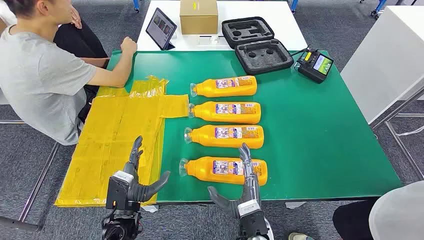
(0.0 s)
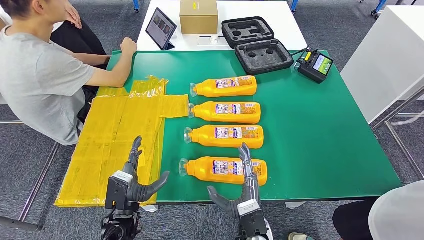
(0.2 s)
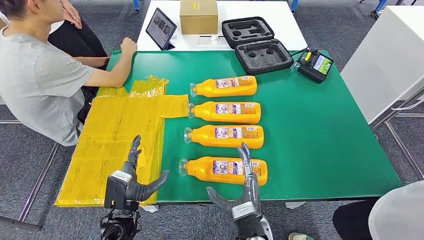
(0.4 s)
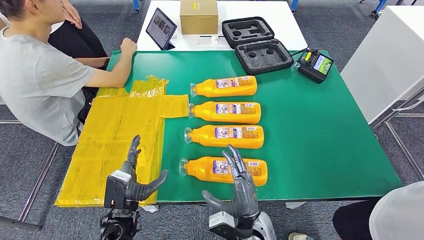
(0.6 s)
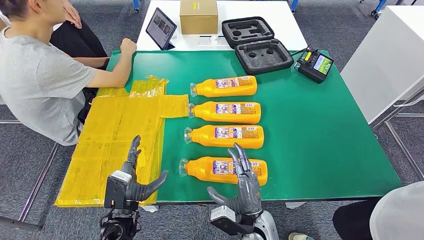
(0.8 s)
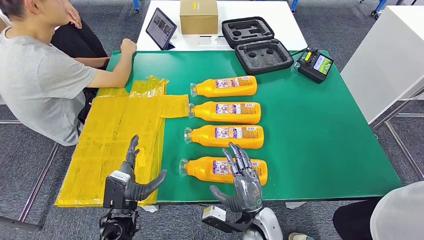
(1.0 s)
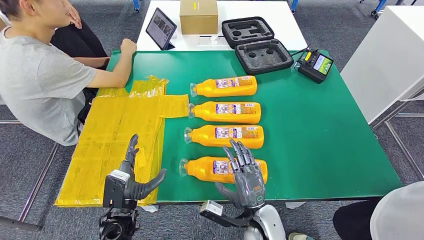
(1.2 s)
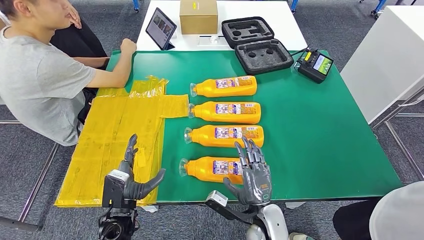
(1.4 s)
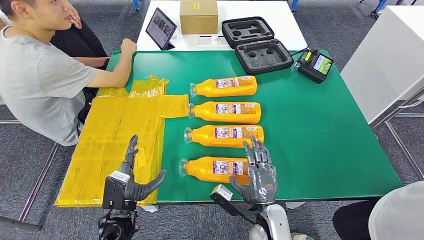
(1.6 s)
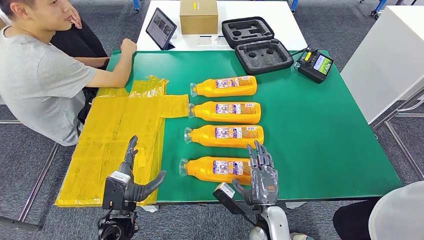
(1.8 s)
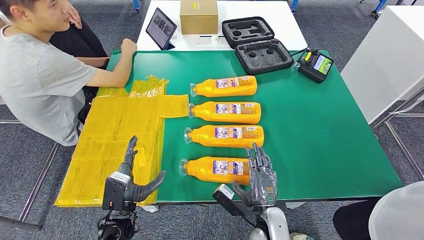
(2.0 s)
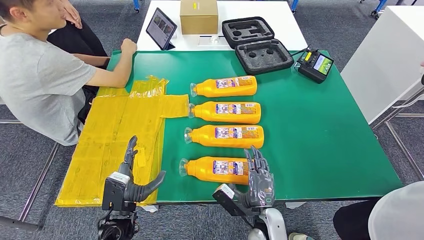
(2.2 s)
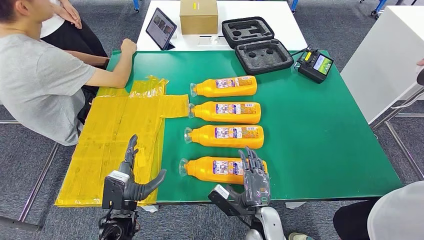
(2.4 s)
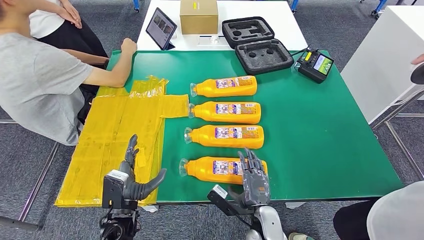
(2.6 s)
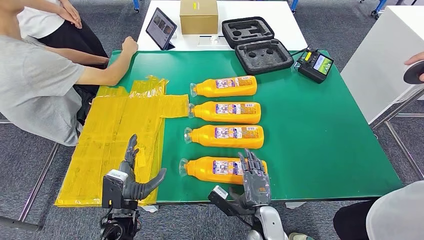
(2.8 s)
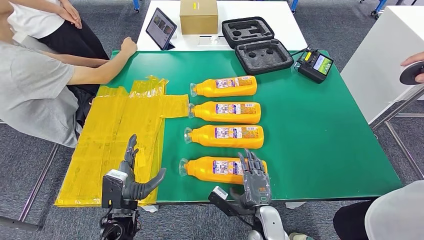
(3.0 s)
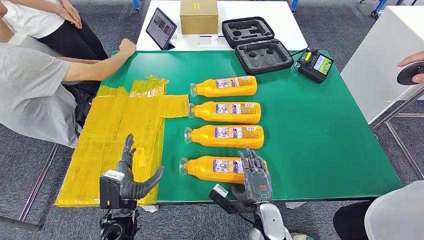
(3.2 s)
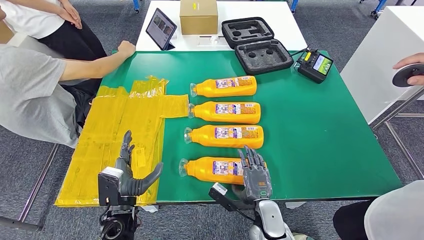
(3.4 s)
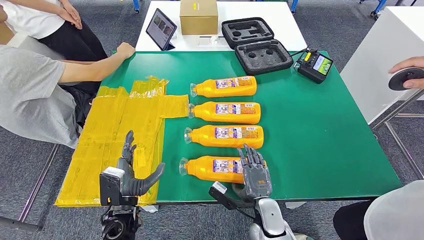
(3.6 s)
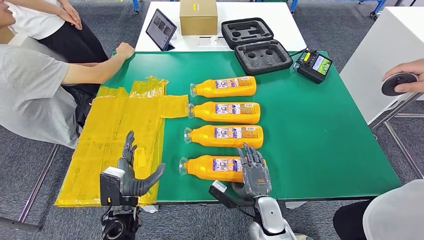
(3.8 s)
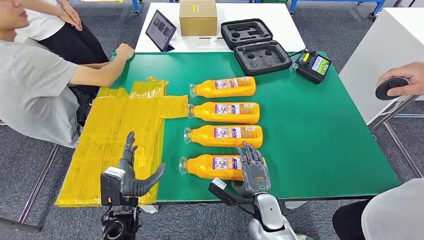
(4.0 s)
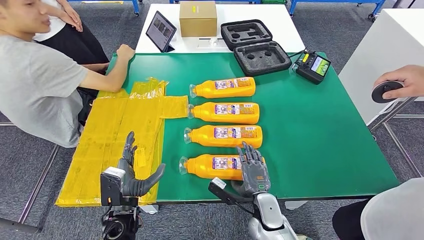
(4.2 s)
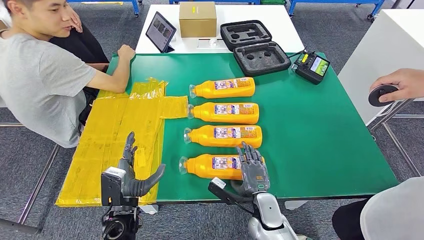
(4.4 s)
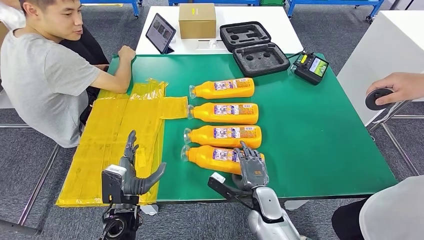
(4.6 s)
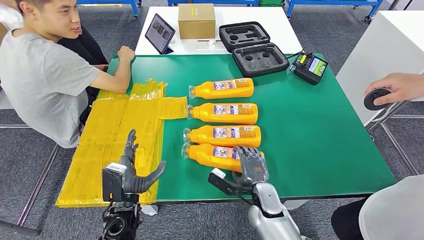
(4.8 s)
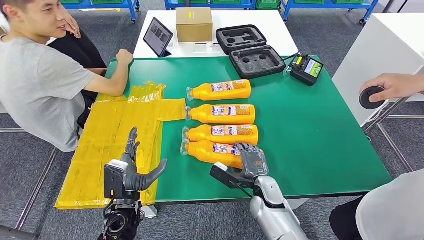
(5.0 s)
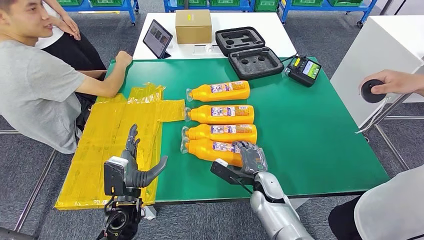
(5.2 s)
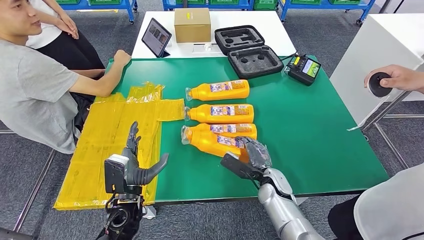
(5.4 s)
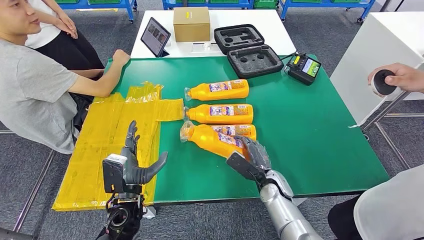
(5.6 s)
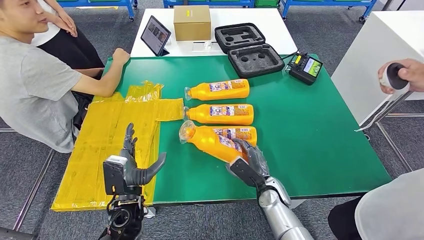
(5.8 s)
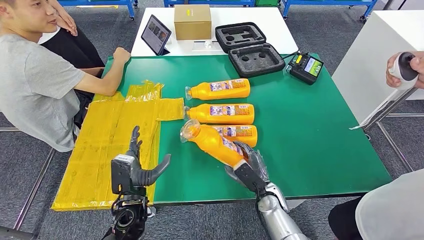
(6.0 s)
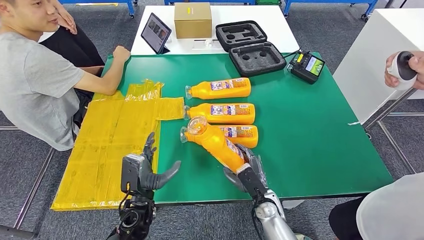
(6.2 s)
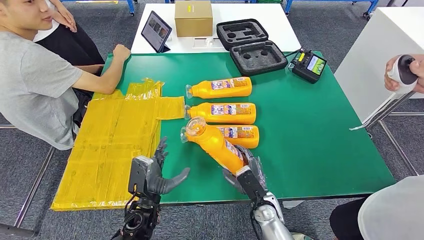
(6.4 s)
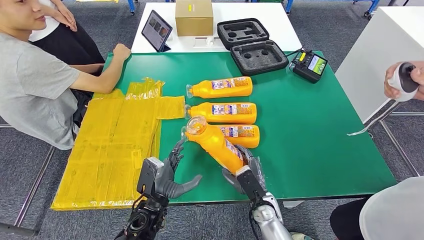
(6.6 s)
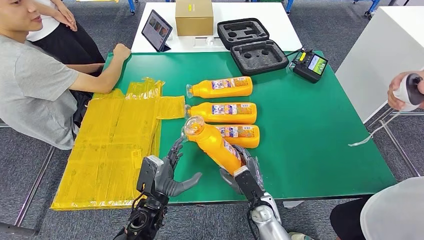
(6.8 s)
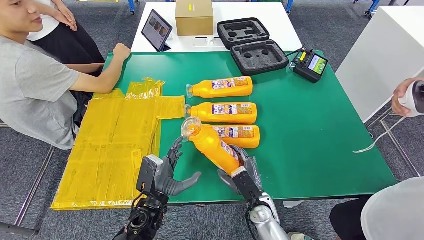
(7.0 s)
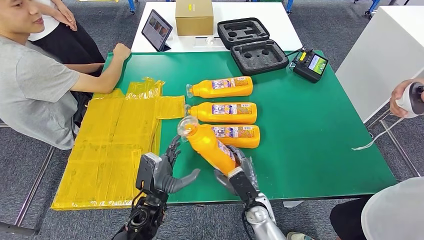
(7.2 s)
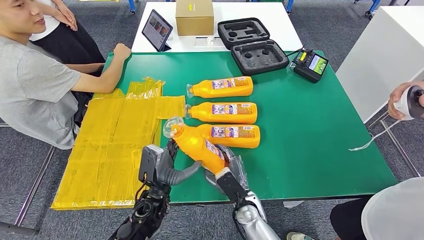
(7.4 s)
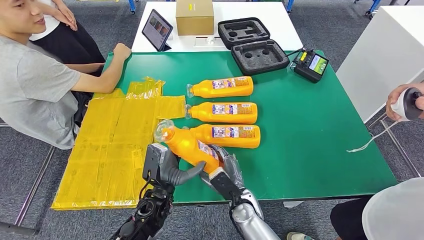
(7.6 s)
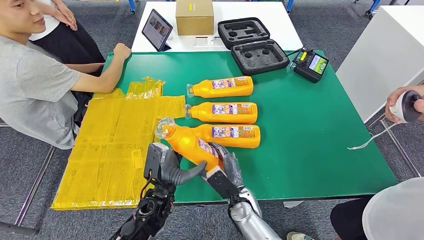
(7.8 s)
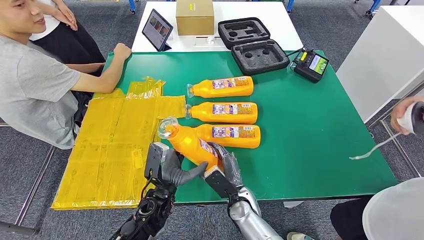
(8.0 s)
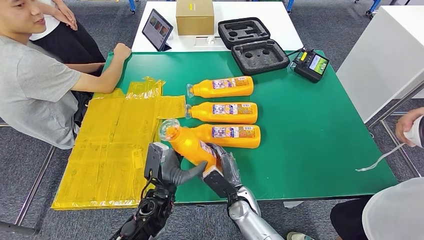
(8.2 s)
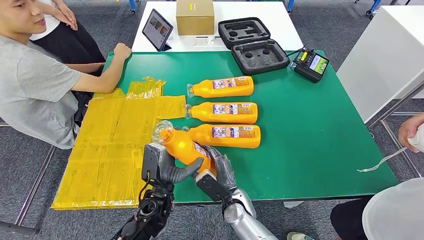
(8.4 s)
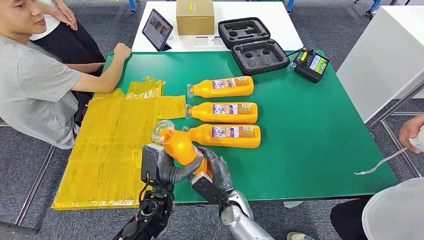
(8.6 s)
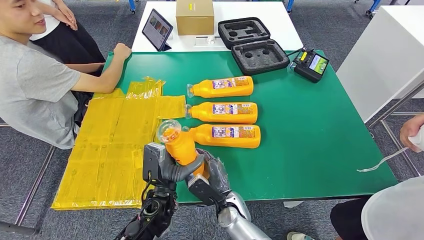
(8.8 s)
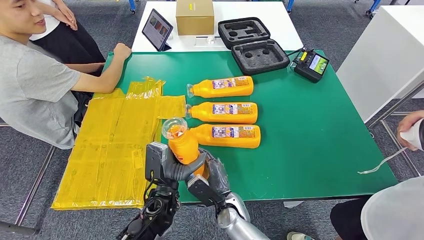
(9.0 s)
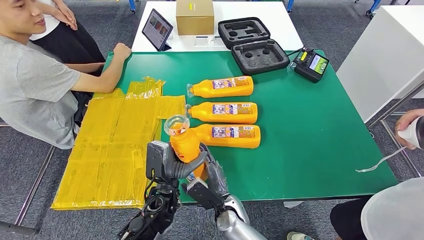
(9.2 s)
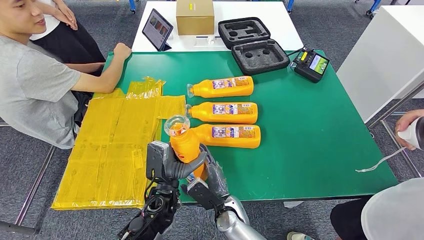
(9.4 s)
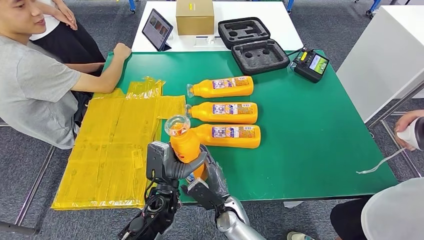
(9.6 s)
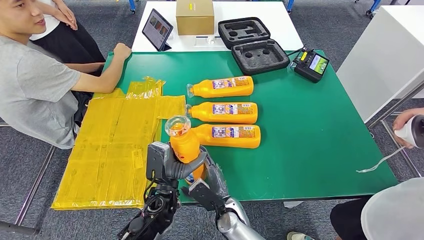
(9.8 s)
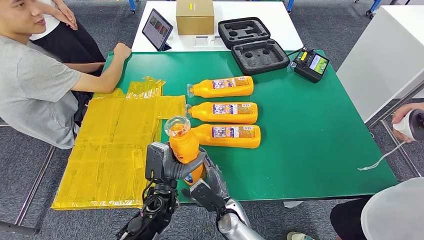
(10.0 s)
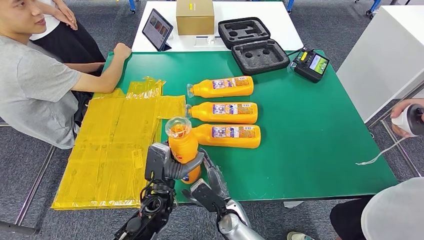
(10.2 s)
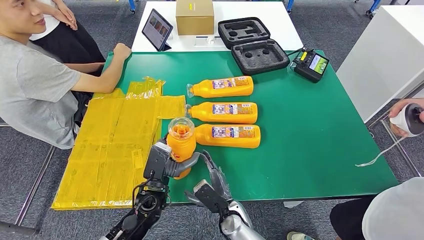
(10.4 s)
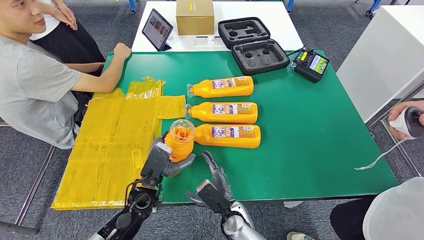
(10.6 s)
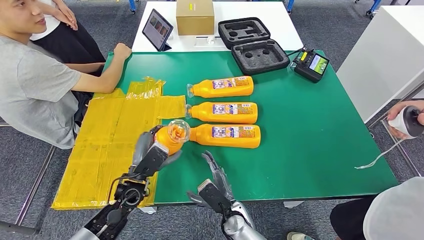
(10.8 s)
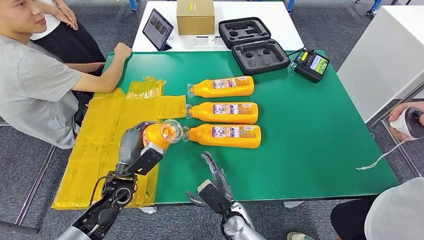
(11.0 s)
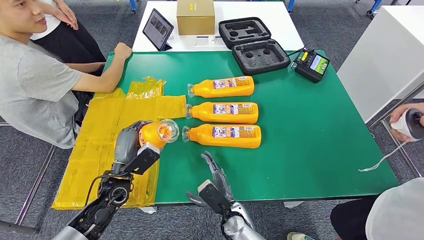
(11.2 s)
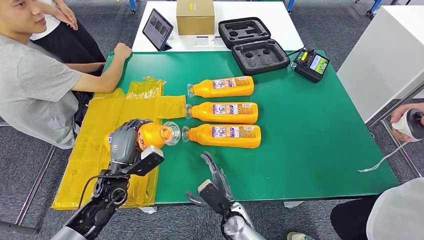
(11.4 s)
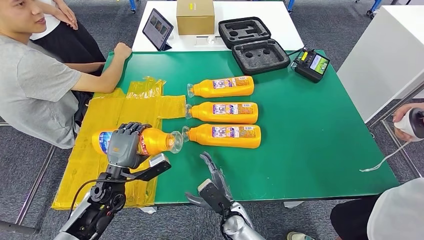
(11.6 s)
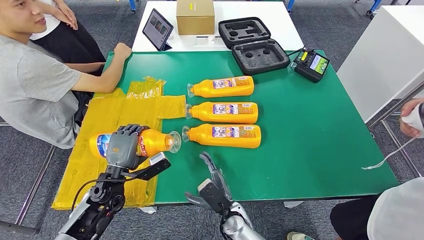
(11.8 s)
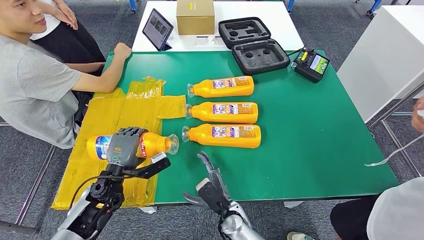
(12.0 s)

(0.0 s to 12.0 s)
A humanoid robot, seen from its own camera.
Step, 0.0 s - 6.4 s: Take the bottle from the table.
1.6 s - 3.0 s: There are only small adjustments of the hands.
7.6 s - 9.0 s: The right hand moves to the left, some 5 cm.
9.0 s - 10.4 s: The hands stay close to where they were, moving slightly.
10.4 s - 12.0 s: The left hand shifts roughly 15 cm to the left.

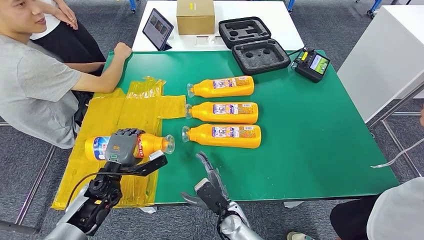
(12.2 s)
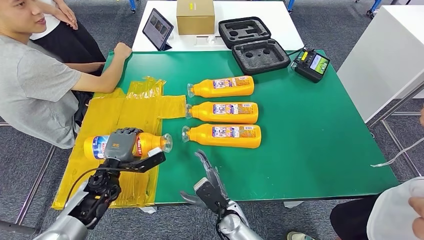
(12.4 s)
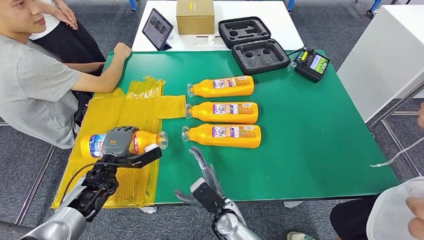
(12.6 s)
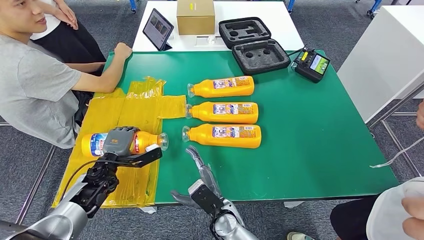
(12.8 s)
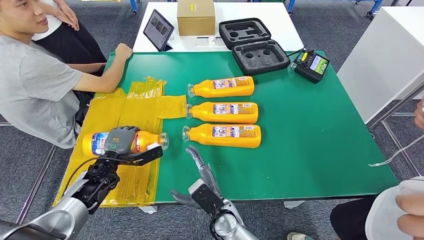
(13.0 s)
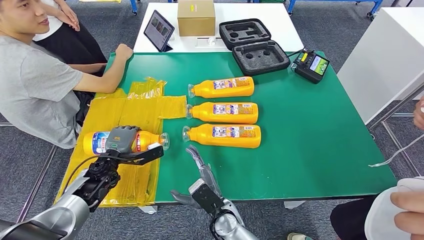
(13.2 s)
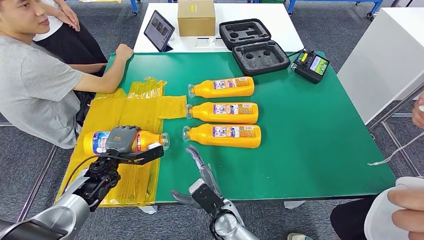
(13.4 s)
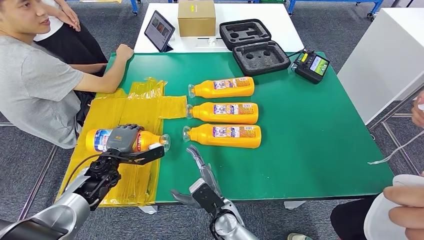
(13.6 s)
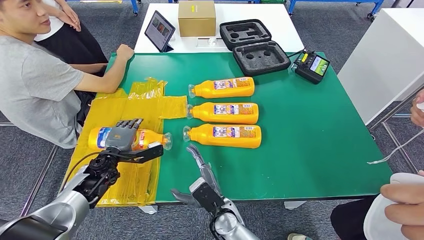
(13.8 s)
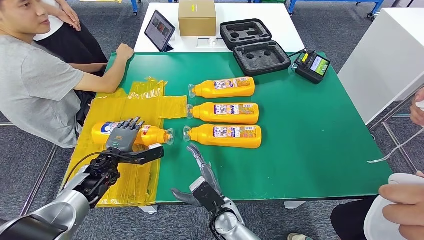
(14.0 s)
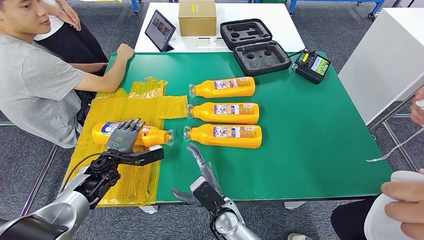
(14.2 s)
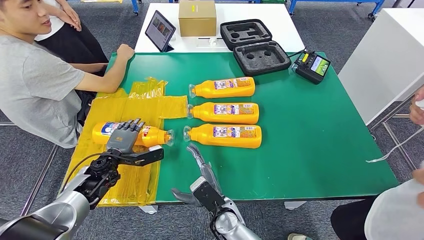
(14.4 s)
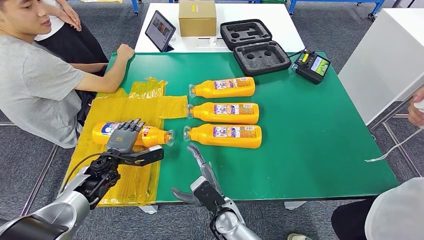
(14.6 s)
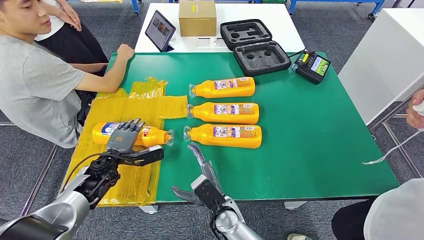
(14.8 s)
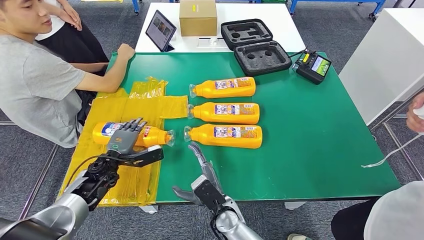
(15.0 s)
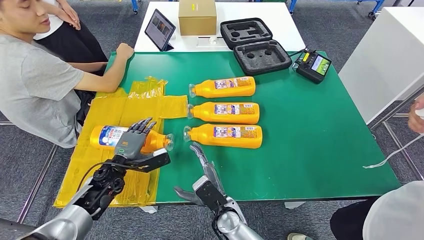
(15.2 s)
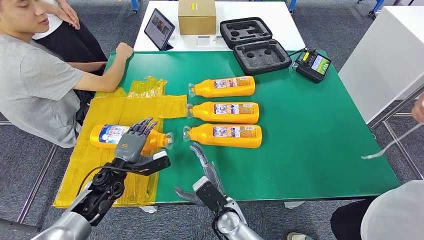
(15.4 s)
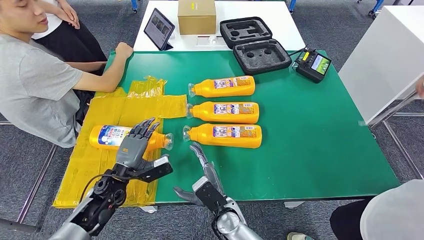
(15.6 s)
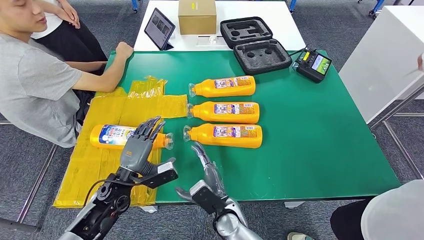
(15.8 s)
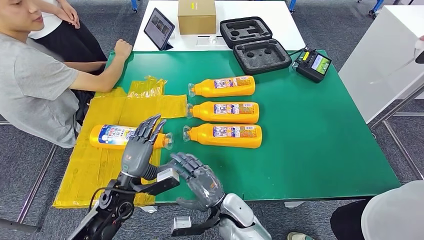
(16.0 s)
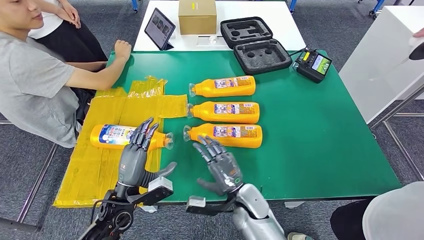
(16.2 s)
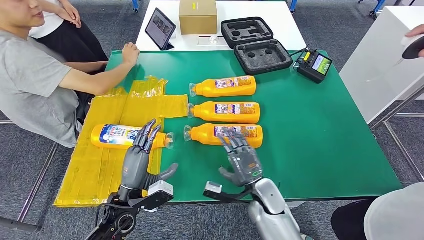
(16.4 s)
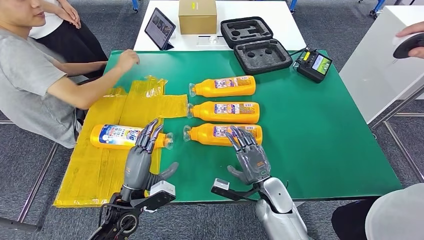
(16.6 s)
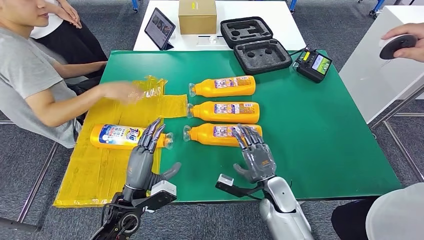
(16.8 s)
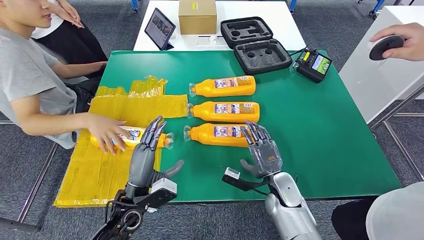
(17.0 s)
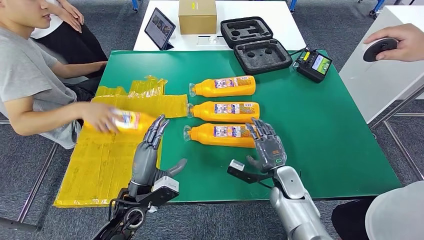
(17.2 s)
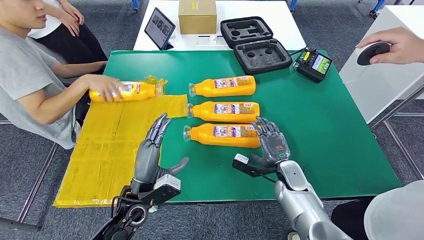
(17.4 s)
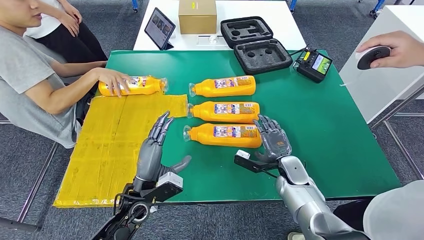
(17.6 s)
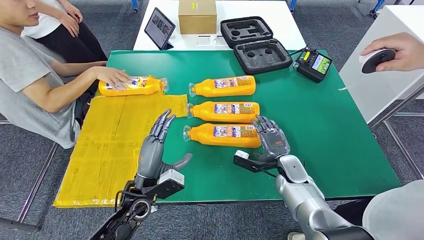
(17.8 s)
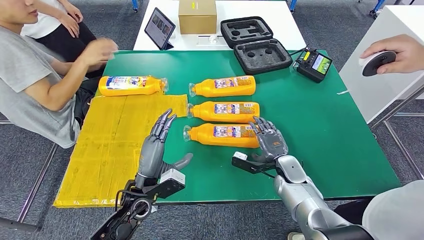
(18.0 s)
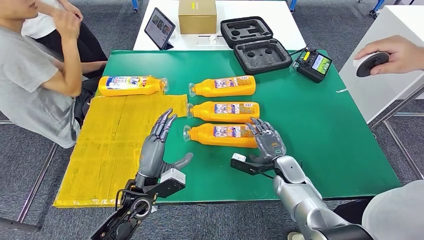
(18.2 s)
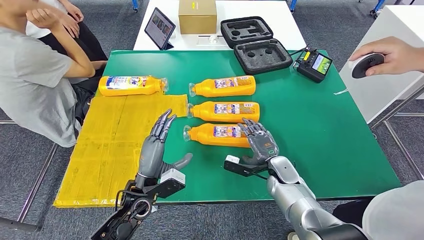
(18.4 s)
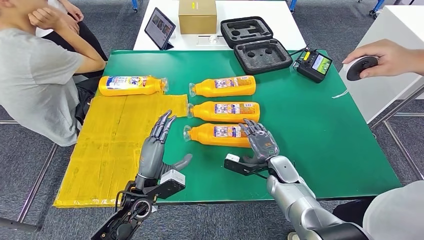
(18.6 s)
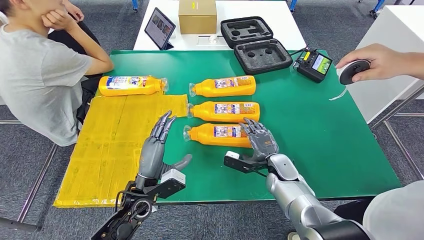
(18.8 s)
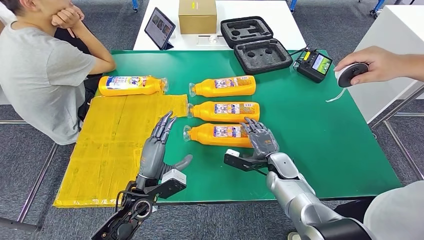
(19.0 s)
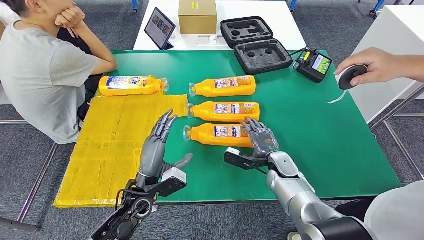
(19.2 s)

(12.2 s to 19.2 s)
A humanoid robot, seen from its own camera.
Step, 12.2 s - 16.4 s: Flip the bottle to face forward.
12.2 s - 13.6 s: The hands stay close to where they were, moving slightly.
13.6 s - 15.0 s: The hands make only small movements.
17.8 s - 19.2 s: The hands make only small movements.
